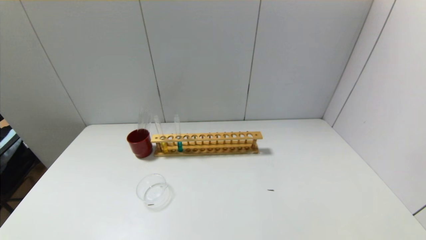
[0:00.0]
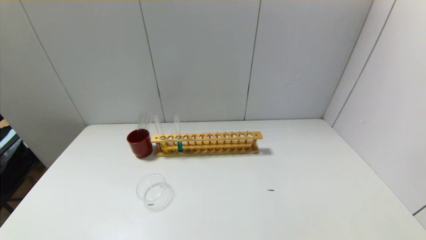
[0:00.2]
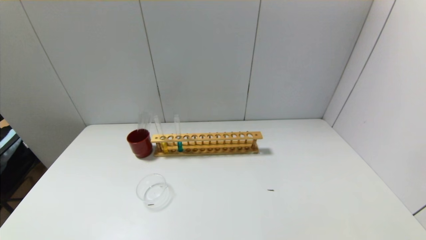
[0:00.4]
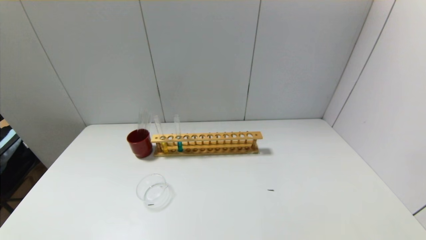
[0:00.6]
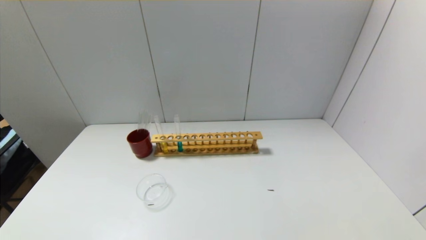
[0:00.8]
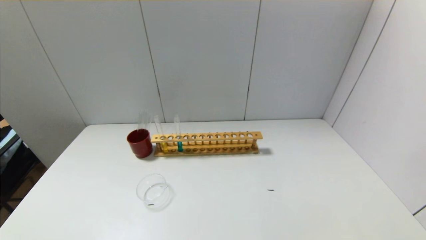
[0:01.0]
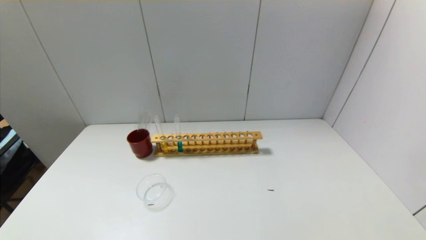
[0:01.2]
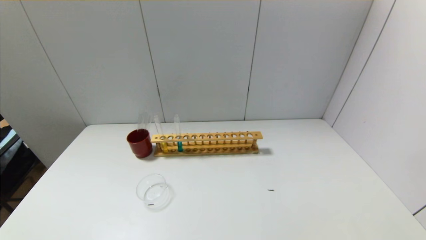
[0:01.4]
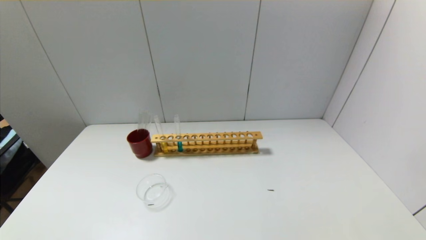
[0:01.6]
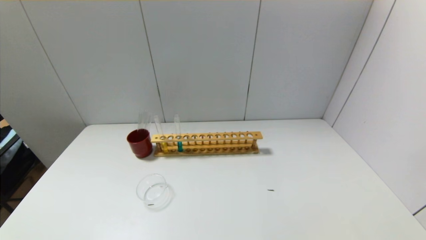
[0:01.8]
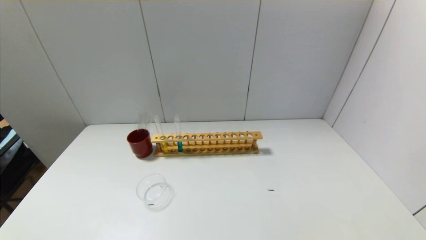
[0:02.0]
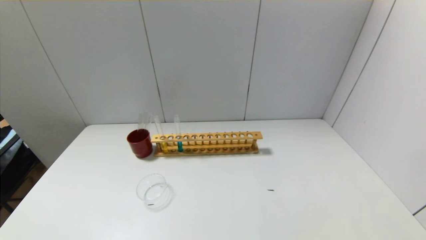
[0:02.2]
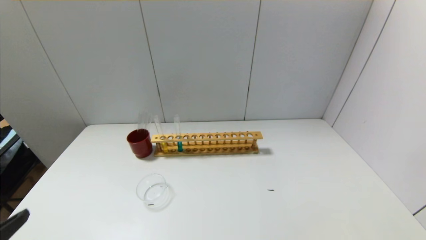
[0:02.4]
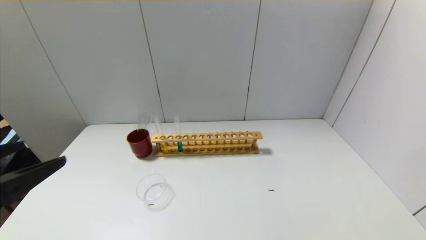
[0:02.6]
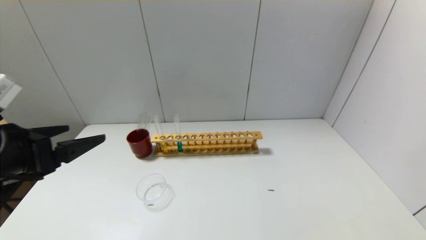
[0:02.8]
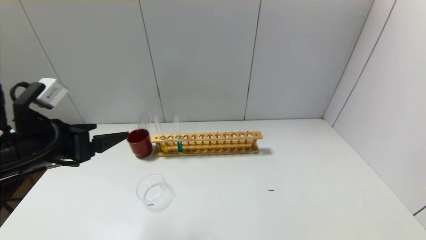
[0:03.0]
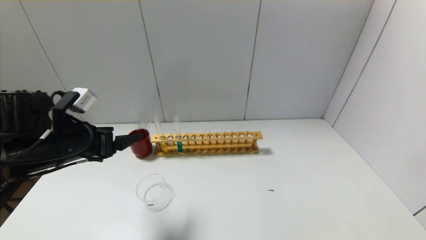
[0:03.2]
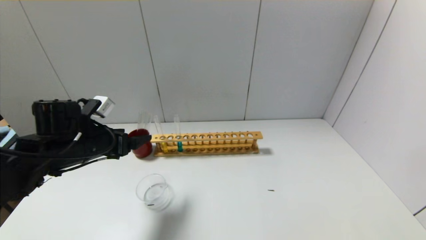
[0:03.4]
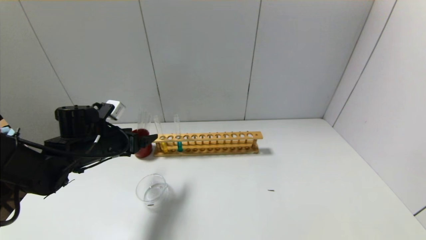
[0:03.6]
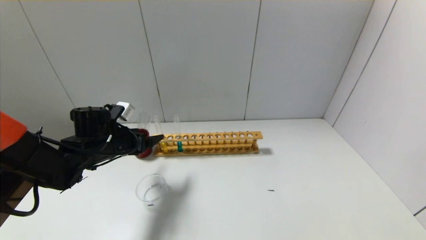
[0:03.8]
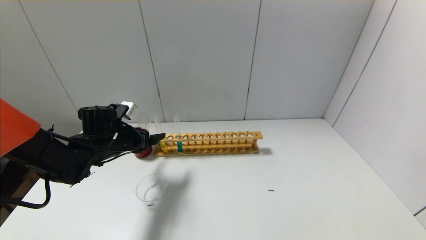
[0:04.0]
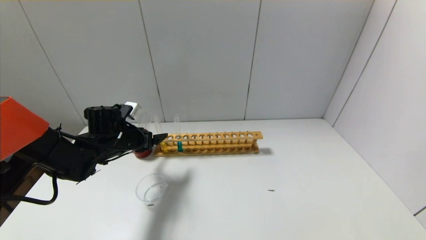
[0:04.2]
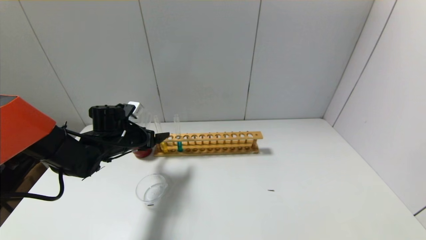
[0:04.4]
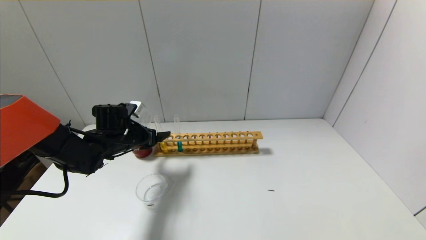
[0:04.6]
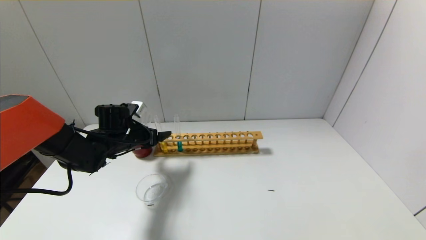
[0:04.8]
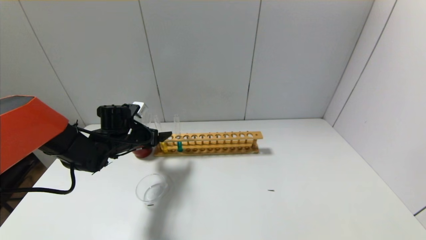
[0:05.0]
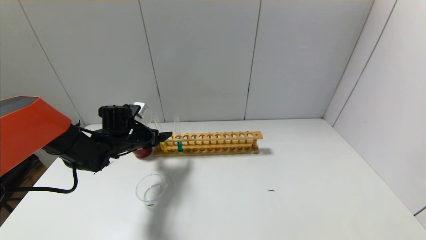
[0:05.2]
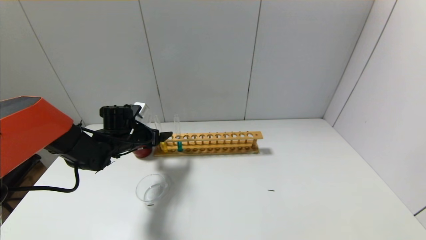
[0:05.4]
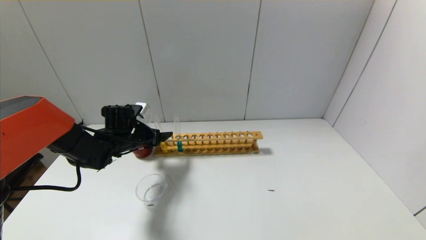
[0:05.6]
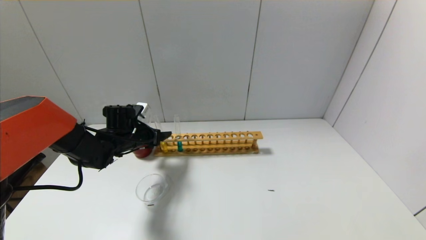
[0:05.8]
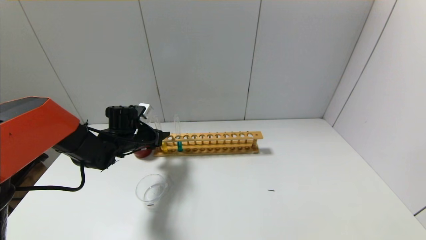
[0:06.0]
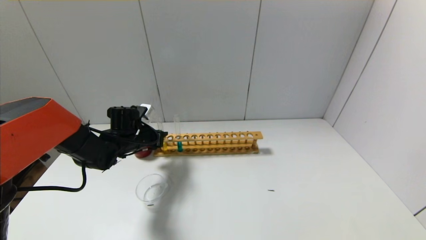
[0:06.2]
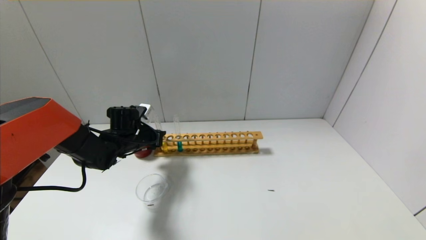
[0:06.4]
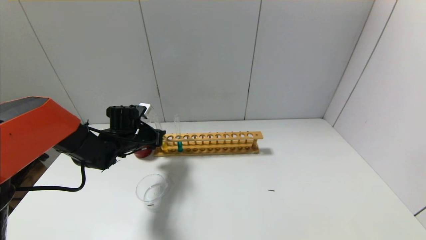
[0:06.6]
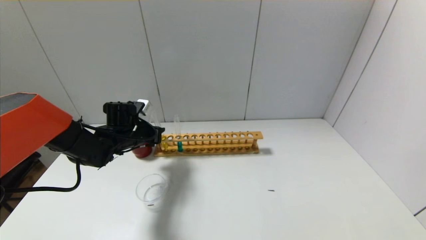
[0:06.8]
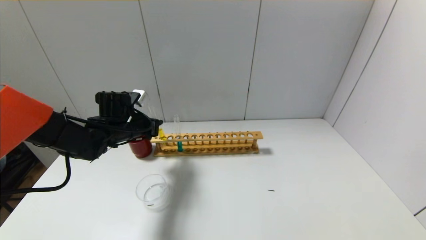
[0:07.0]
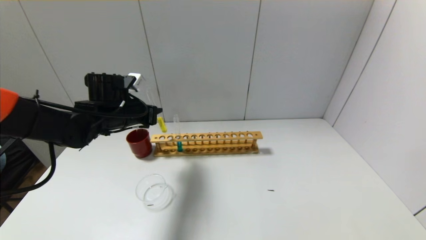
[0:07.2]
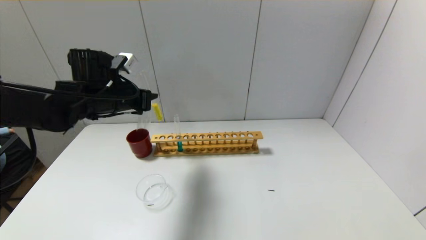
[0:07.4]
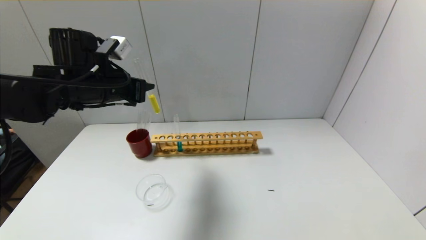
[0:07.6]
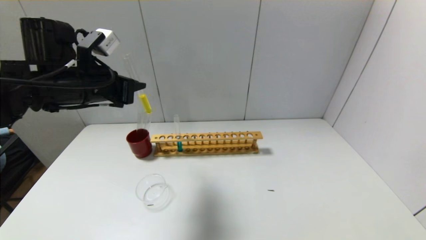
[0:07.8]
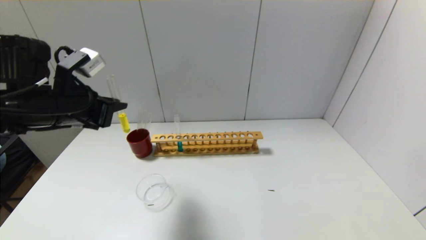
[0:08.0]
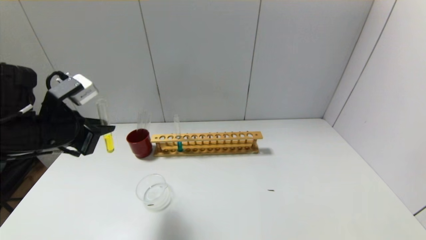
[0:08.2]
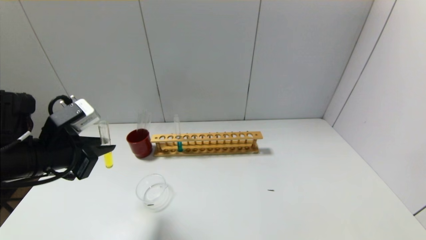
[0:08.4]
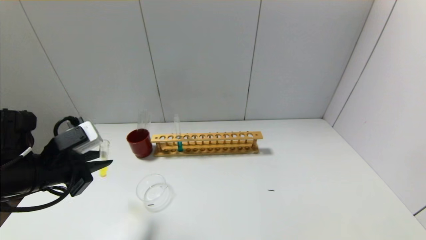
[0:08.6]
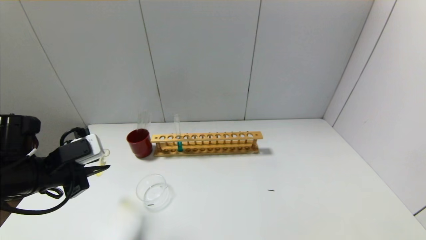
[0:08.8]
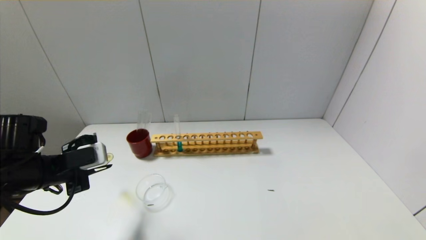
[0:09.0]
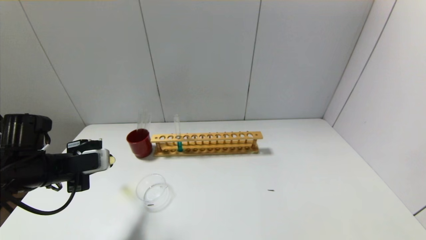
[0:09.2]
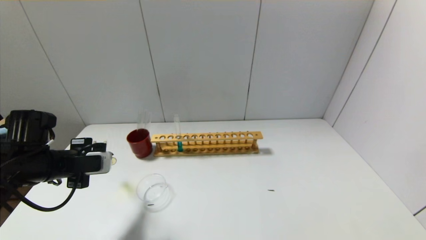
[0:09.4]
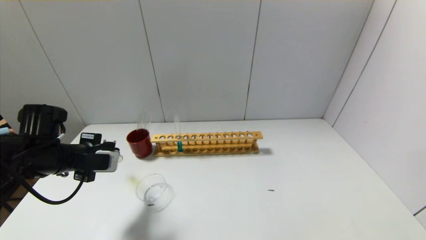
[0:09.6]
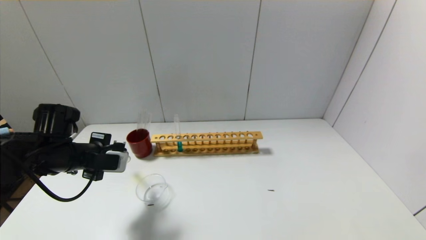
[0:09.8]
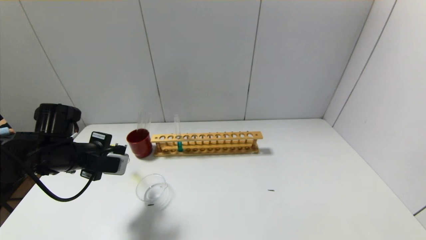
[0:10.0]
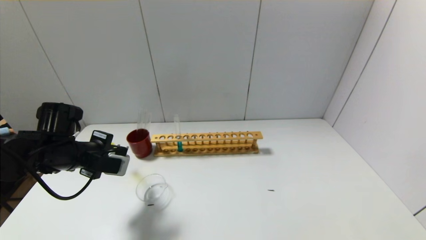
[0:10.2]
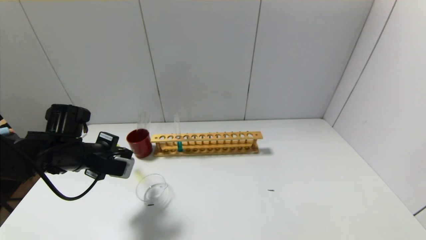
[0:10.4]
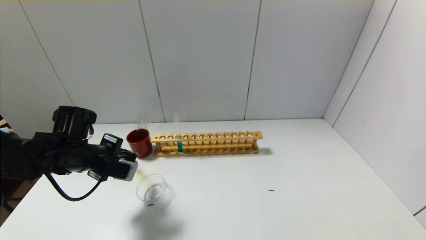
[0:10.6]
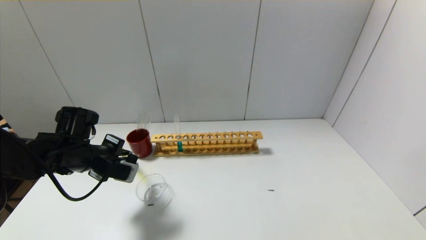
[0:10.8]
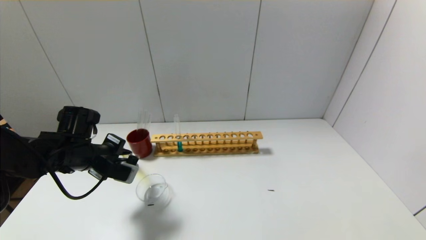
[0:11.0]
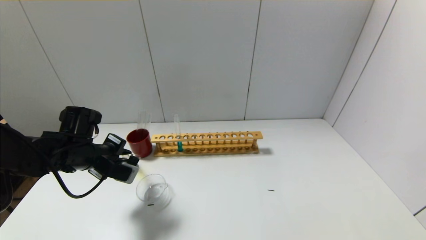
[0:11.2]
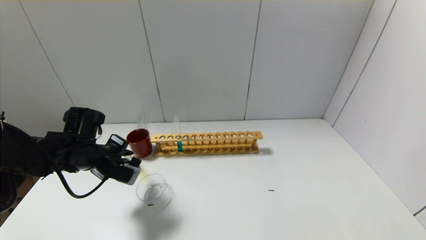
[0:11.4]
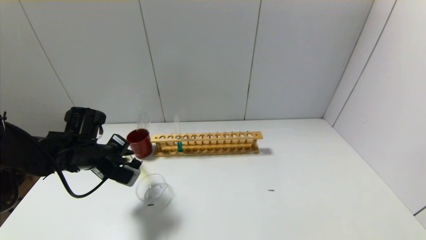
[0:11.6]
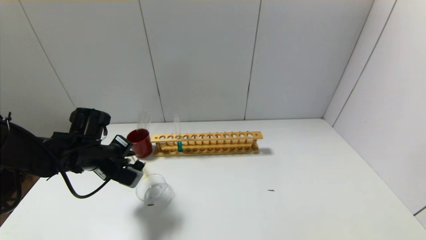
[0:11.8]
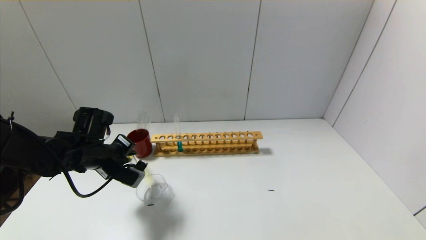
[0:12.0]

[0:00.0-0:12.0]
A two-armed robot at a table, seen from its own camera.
Step, 0:00.0 to 0:06.2: Grasp the yellow reagent with the left gripper.
0:00.0 to 0:01.6: Both grippers stay about where they are.
0:01.6 to 0:03.0: The left gripper moves forward and upward, about 25 cm.
0:03.0 to 0:04.4: The left gripper is displaced forward and downward by some 20 cm.
0:04.4 to 0:06.0: The left gripper closes up.
0:06.0 to 0:07.6: The left gripper shifts approximately 20 cm upward, and closes.
0:07.6 to 0:09.0: The left gripper moves downward, backward and to the left, some 20 cm.
0:09.0 to 0:10.4: The left gripper heads forward, covering about 5 cm.
0:10.4 to 0:12.0: The grippers make only small movements.

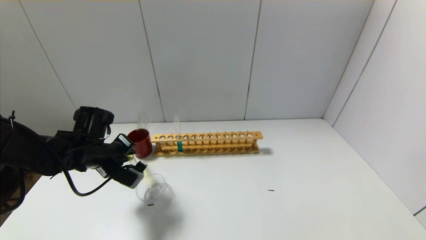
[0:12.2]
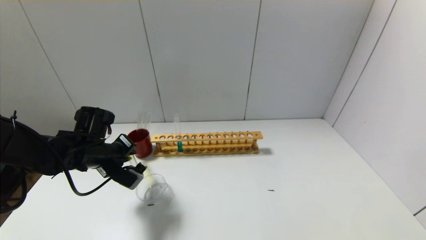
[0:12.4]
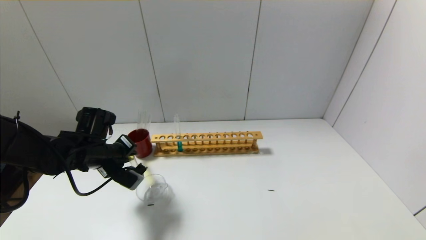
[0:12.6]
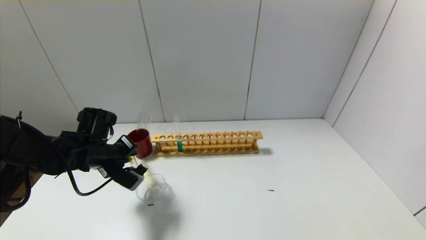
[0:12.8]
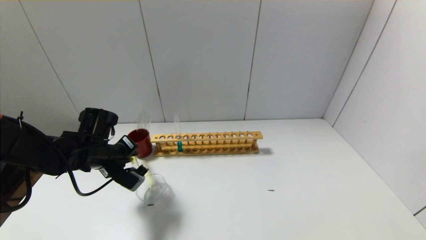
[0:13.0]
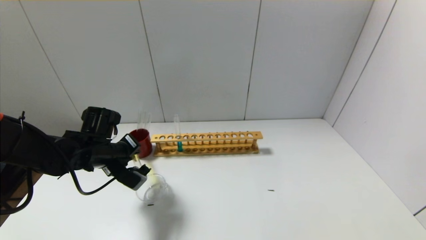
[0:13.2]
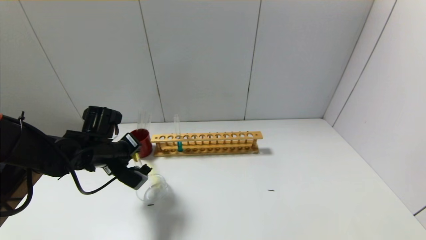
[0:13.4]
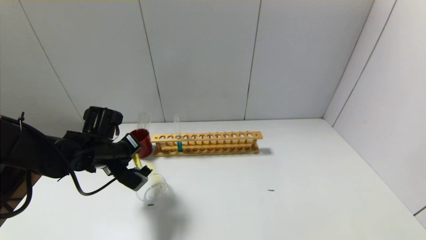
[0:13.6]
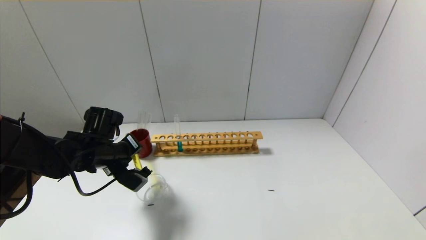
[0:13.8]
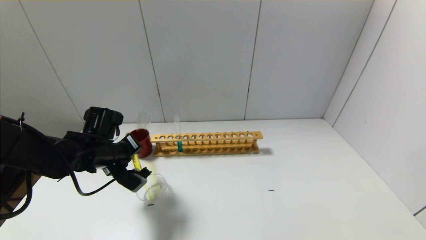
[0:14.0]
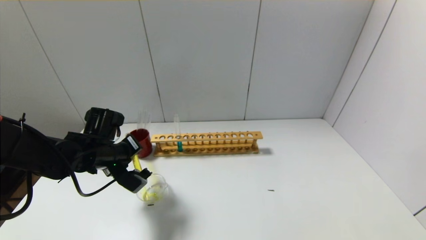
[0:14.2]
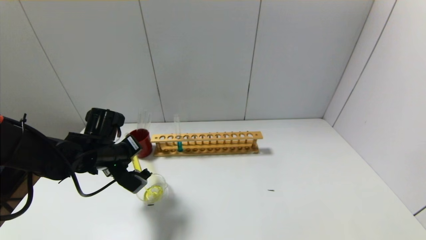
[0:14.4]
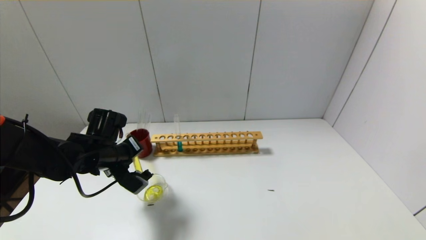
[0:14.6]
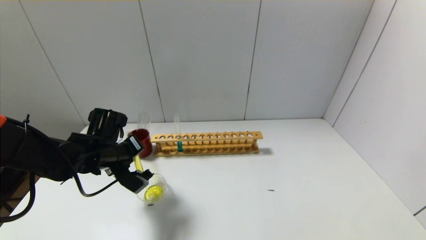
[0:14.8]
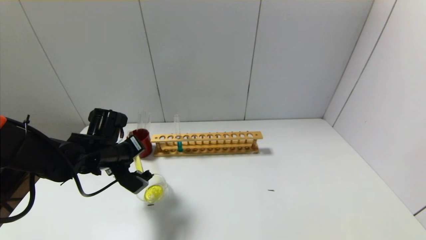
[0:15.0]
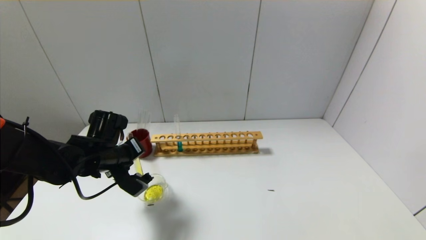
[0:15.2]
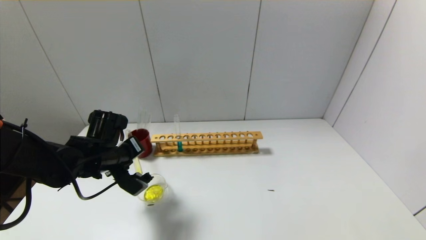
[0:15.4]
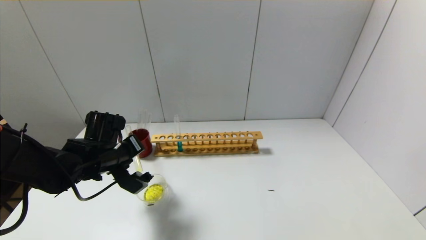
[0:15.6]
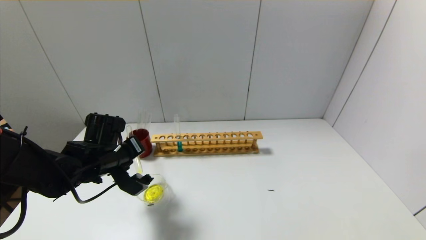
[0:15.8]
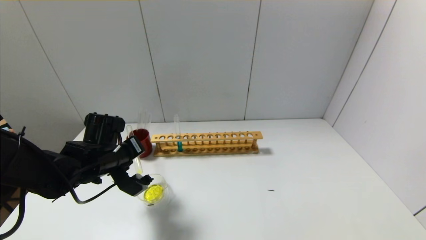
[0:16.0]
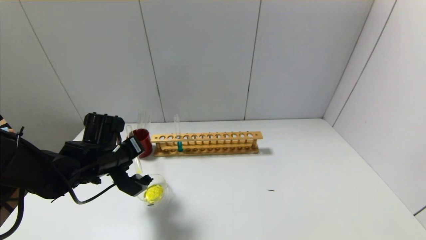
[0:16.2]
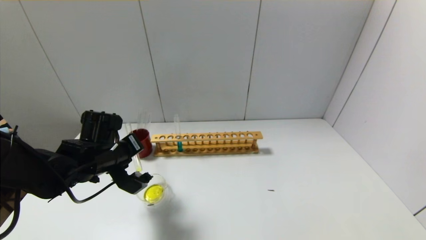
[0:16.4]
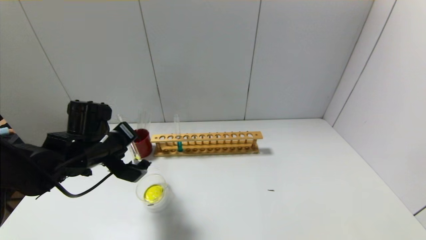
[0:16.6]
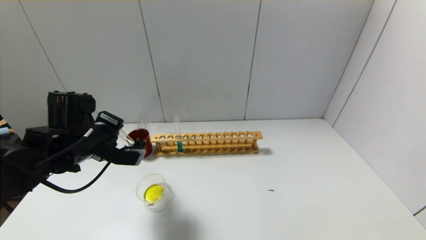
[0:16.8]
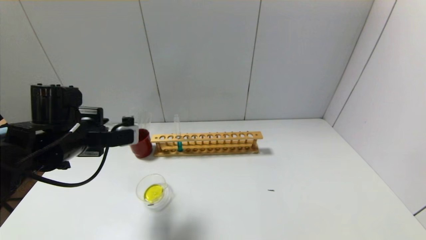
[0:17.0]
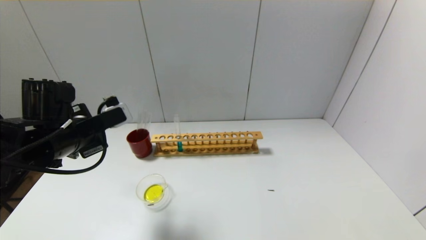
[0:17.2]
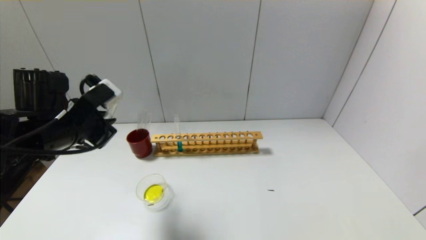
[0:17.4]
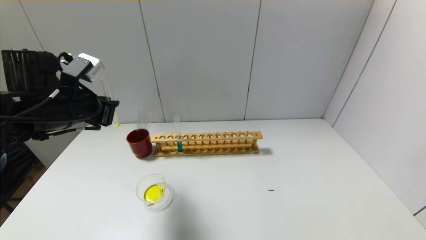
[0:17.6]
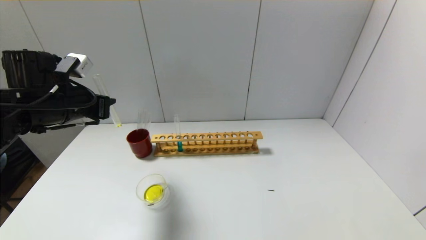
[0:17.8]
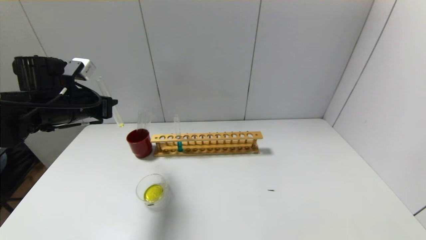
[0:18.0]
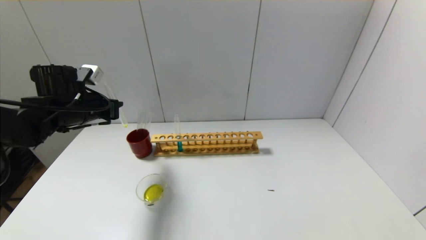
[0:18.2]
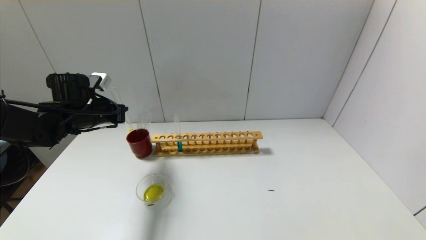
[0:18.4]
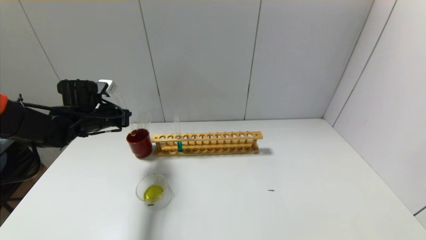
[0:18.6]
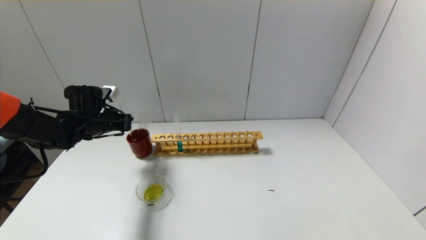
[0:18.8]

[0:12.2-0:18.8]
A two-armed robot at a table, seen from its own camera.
Step, 0:12.2 to 0:16.8: Pour the yellow reagent into the graduated cylinder with the left gripper.
0:12.2 to 0:15.4: There are only small adjustments of the grippers.
0:15.4 to 0:17.2: The left gripper goes approximately 10 cm upward.
0:17.2 to 0:18.8: The left gripper shifts roughly 15 cm forward and downward.
